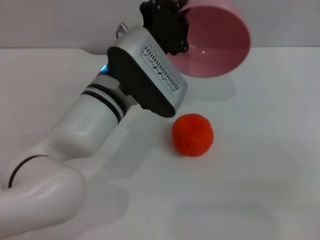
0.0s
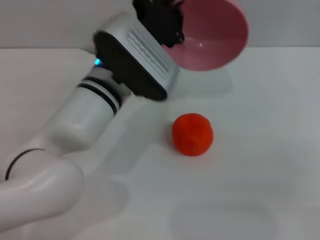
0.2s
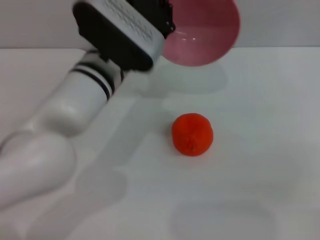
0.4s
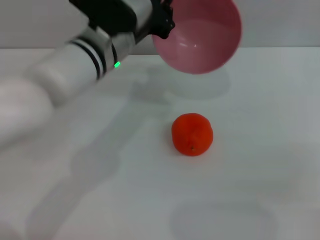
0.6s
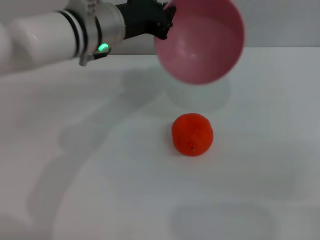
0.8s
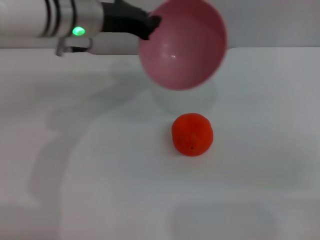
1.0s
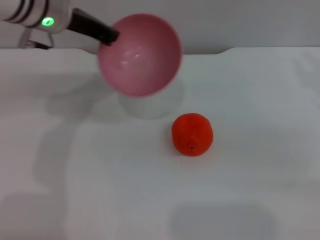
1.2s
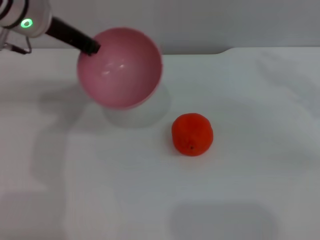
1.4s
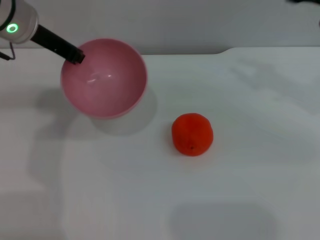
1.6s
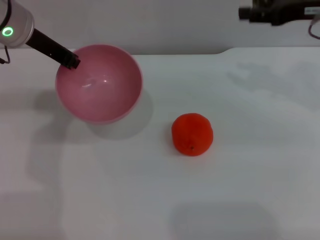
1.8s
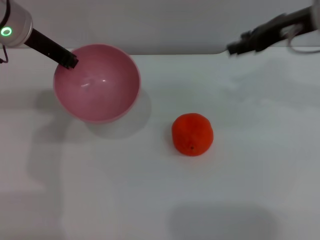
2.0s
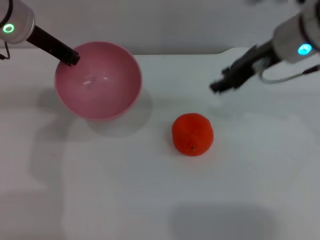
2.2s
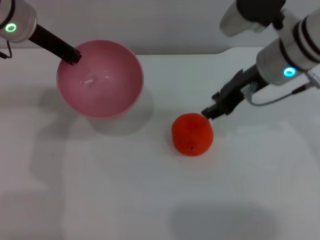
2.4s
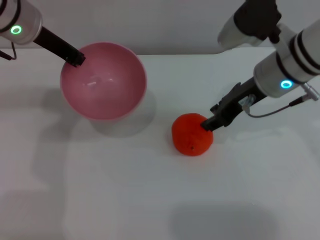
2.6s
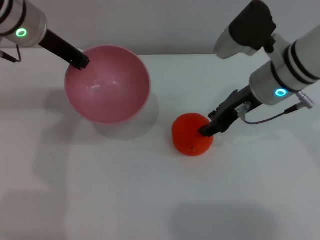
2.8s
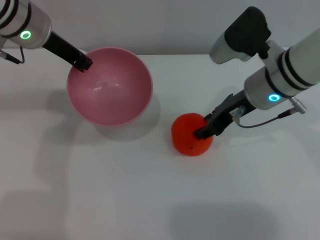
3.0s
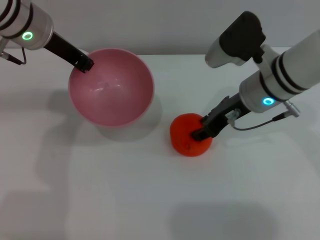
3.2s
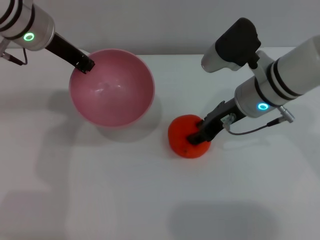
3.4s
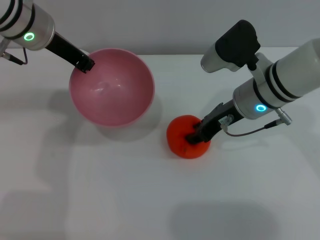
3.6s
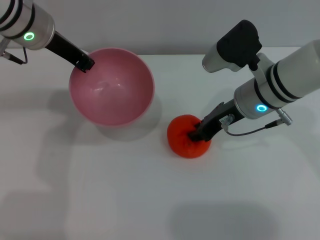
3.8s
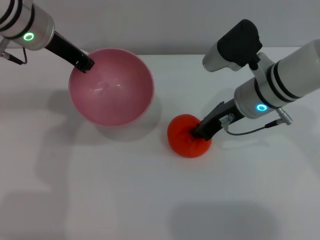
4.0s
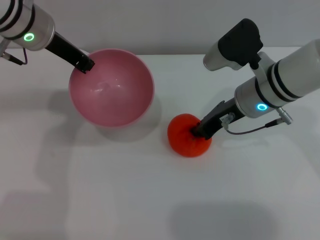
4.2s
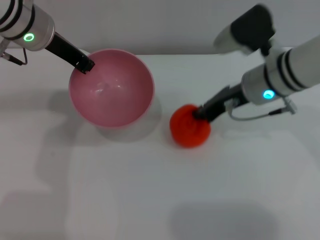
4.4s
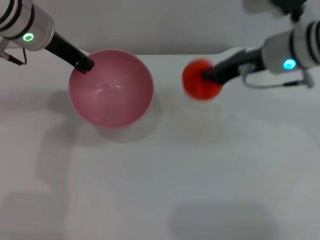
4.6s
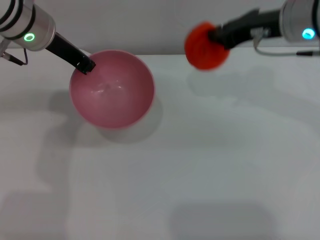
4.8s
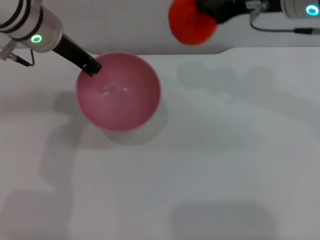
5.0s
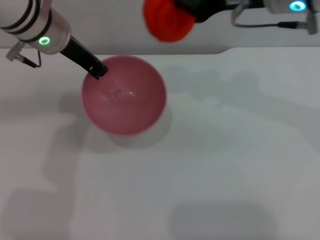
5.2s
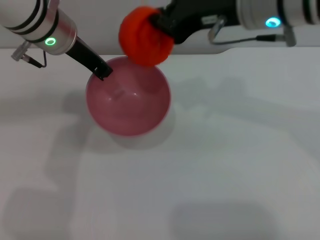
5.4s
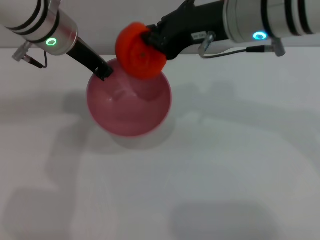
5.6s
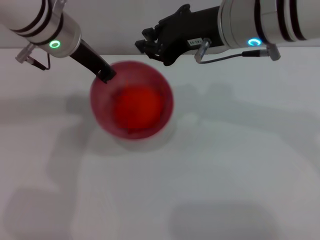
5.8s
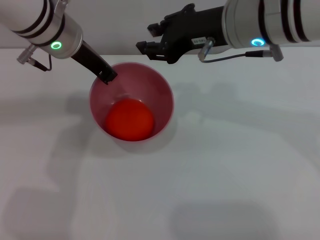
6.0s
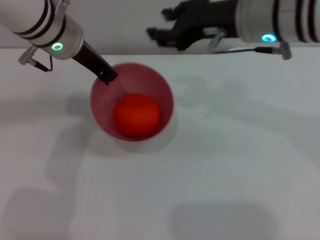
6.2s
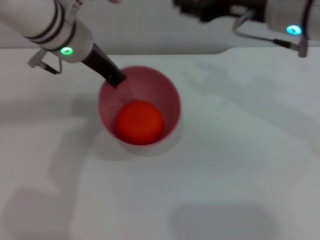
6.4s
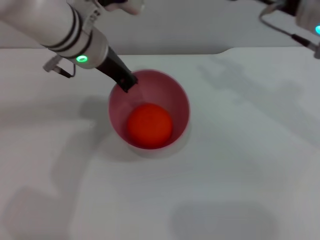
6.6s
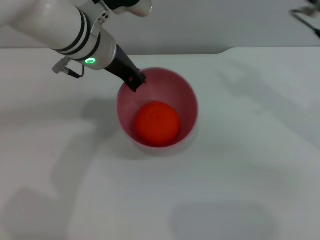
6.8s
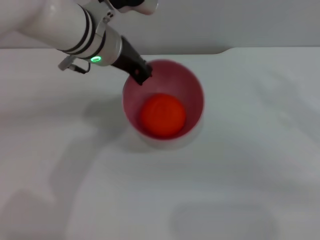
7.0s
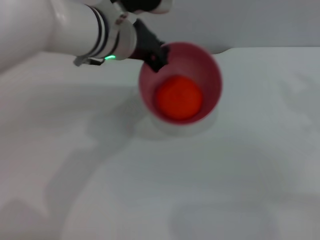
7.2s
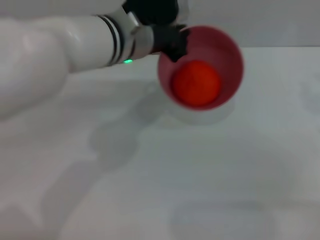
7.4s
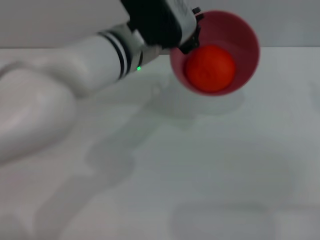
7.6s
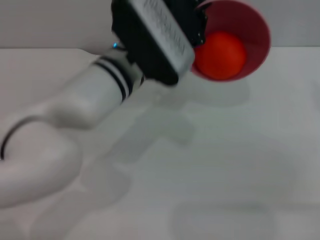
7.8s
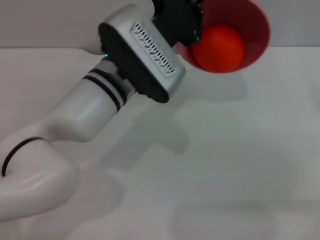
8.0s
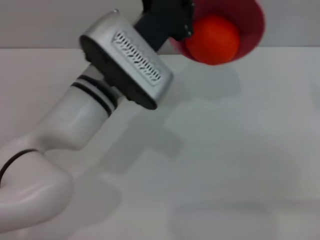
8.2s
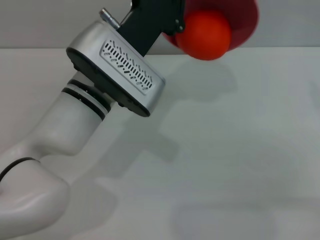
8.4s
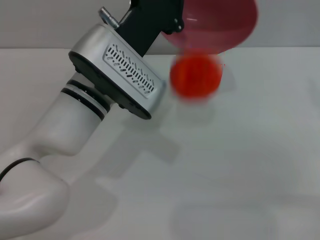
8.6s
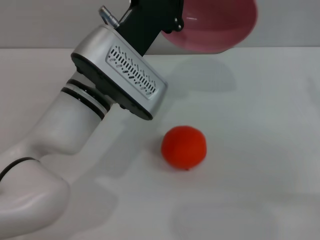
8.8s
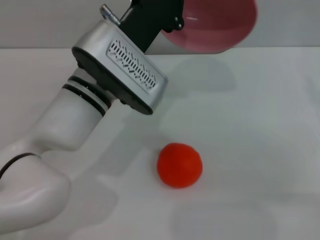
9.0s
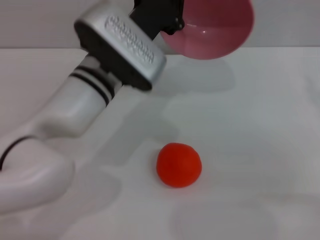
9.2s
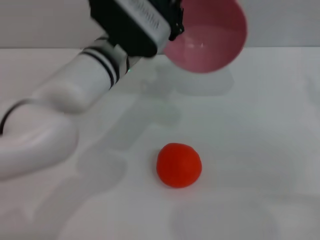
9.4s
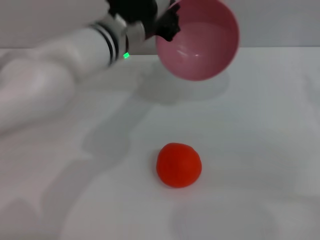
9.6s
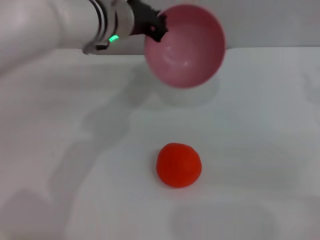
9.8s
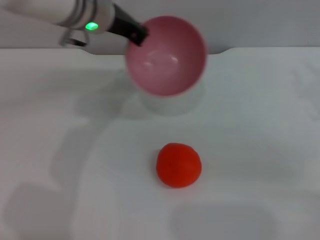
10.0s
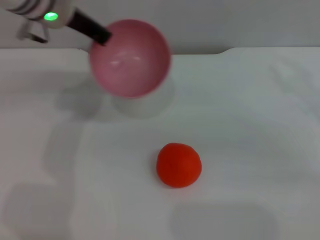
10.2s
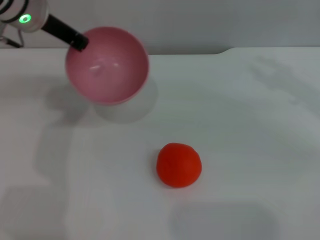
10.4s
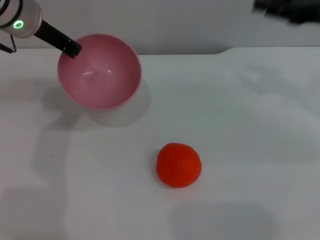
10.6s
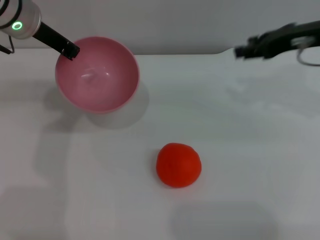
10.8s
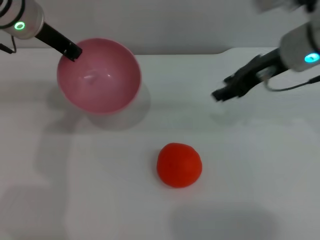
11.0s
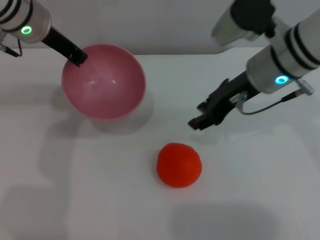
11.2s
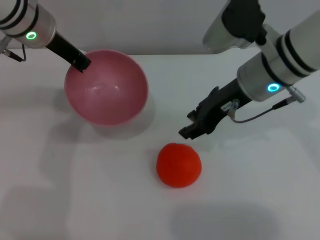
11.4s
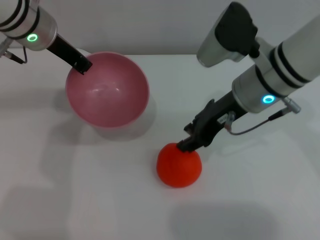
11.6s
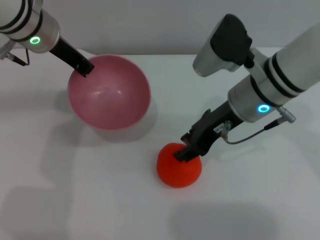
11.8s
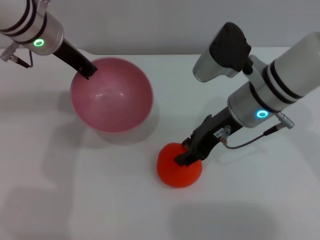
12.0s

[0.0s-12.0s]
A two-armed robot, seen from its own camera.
Task of the whole recording: put the orange into the pink bowl and pour it out repeatedly.
Step, 0.4s to 4.4s: Pick up the orange with the right gripper.
Step, 4.6s to 6.4s: Place the orange into the bowl.
Step, 6.6s to 8.6s: Pour the orange out of the bowl.
0.0s to 1.6s: The left gripper is displaced to the left, upward and forward by about 20 cm, while the right gripper shifts about 10 cm forward.
1.6s to 3.0s: The right gripper shifts roughly 15 cm to the left and downward.
3.0s to 4.4s: The right gripper closes.
4.4s to 6.0s: The right gripper travels upward by about 10 cm, and opens up.
6.0s to 7.6s: The right gripper goes about 20 cm to the right, and opens, while the left gripper is displaced to the right by about 10 cm.
9.0s to 10.4s: The right gripper heads forward, covering approximately 5 cm. Meanwhile the left gripper is displaced to the left, forward and upward by about 15 cm.
10.4s to 12.0s: The right gripper moves to the left, about 20 cm.

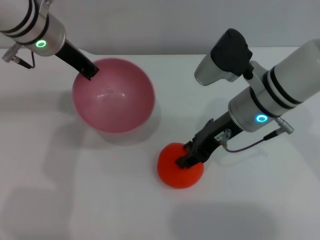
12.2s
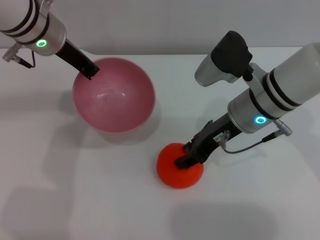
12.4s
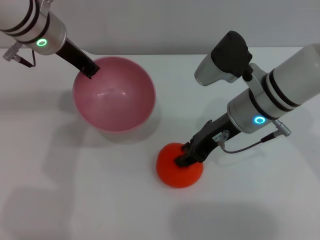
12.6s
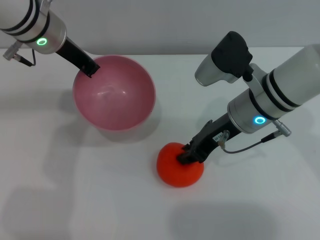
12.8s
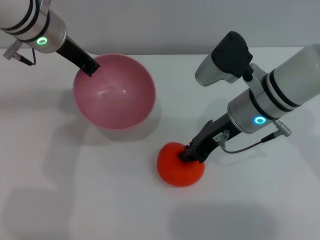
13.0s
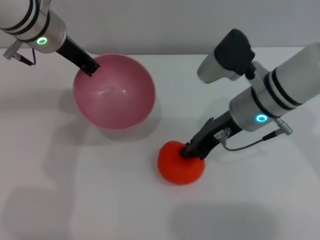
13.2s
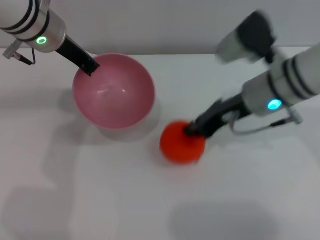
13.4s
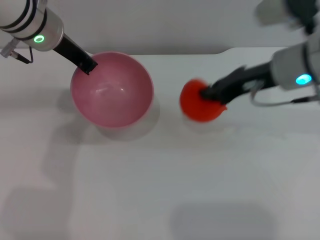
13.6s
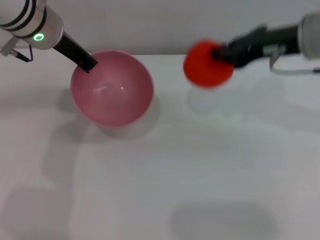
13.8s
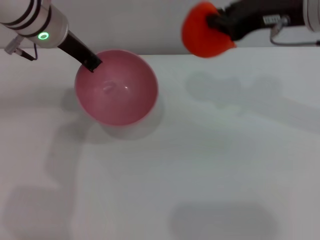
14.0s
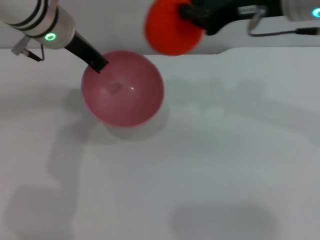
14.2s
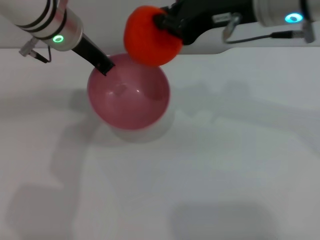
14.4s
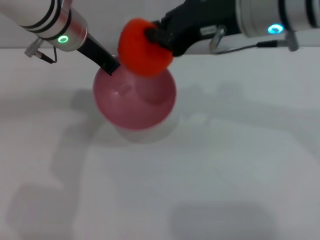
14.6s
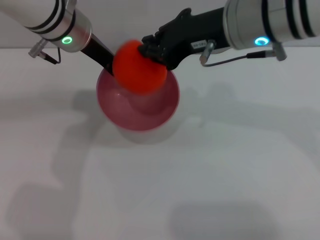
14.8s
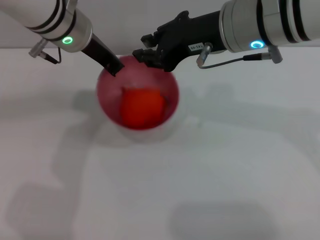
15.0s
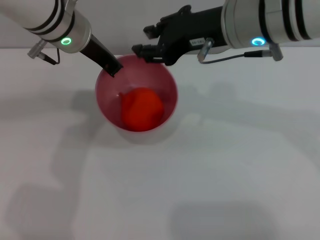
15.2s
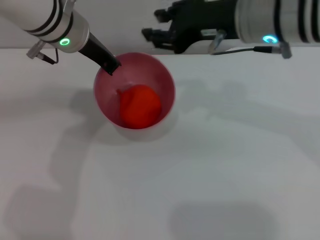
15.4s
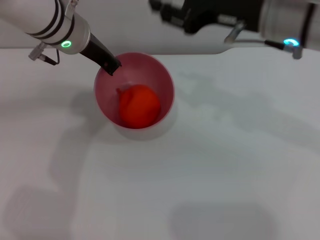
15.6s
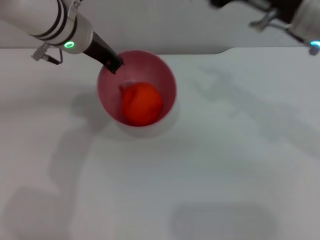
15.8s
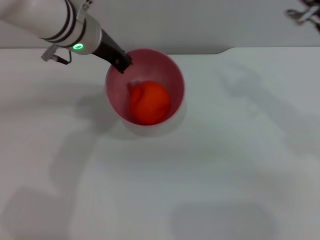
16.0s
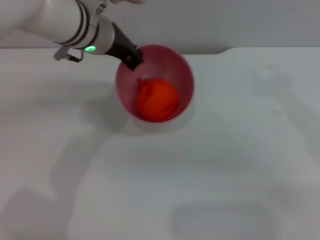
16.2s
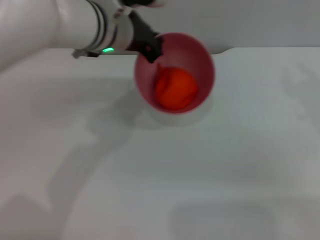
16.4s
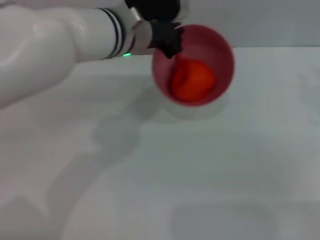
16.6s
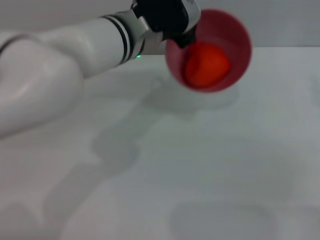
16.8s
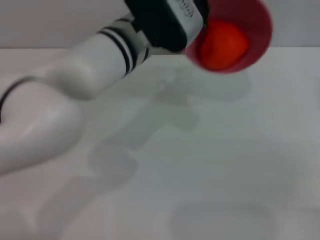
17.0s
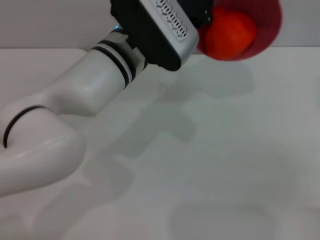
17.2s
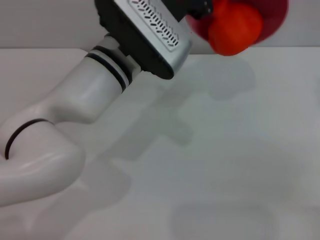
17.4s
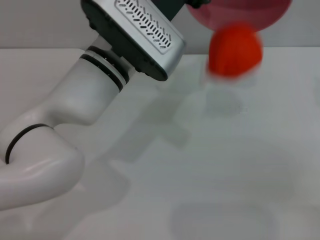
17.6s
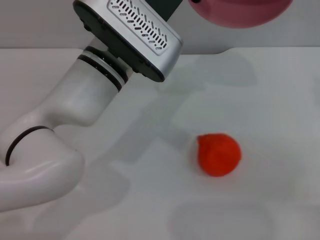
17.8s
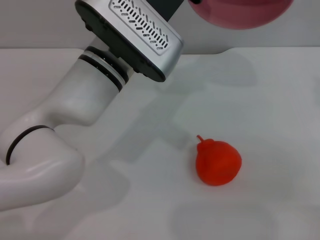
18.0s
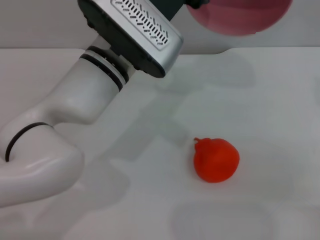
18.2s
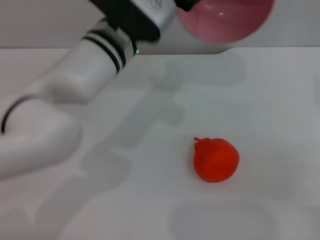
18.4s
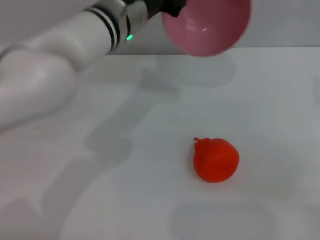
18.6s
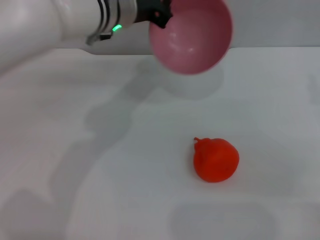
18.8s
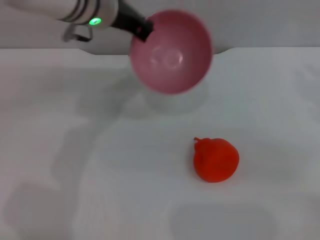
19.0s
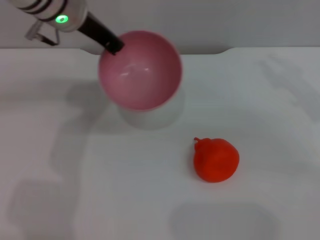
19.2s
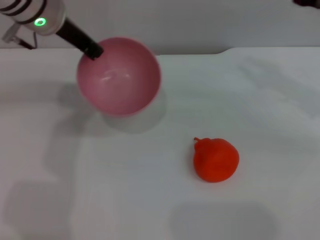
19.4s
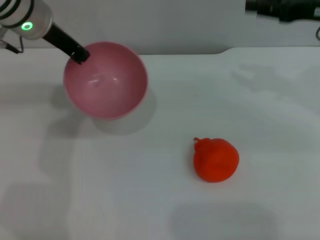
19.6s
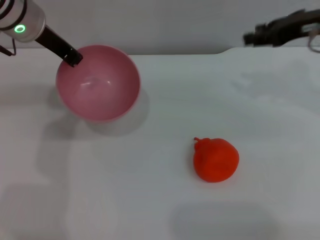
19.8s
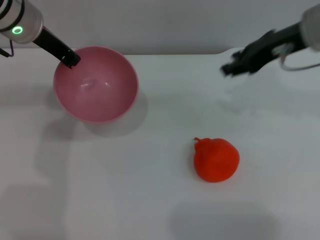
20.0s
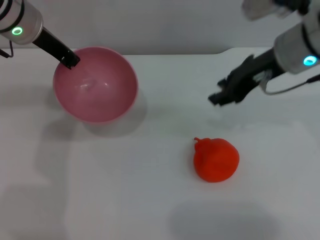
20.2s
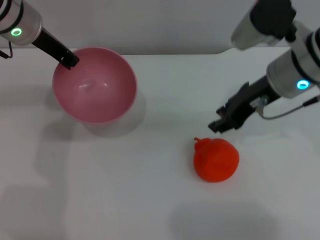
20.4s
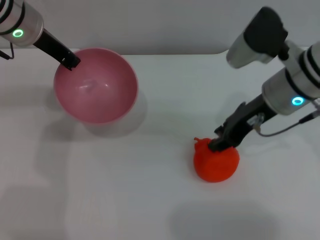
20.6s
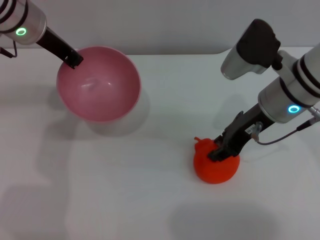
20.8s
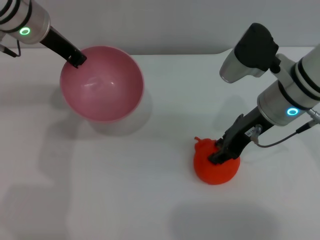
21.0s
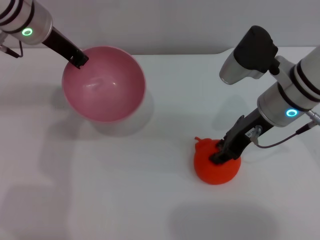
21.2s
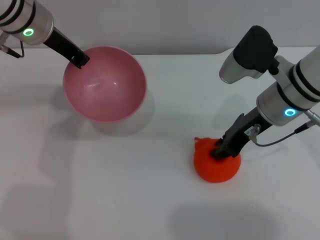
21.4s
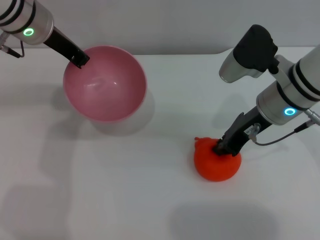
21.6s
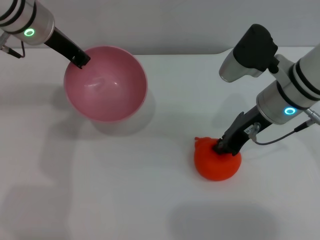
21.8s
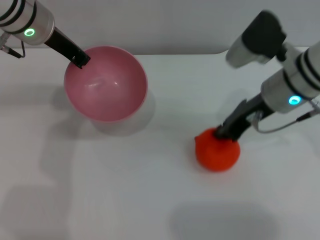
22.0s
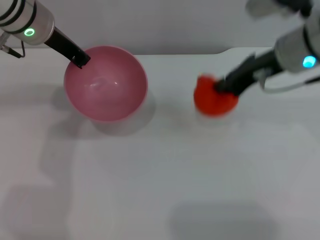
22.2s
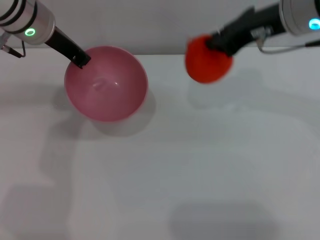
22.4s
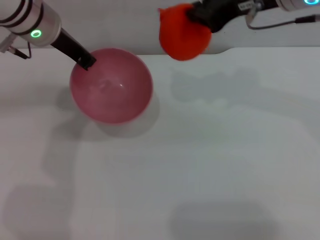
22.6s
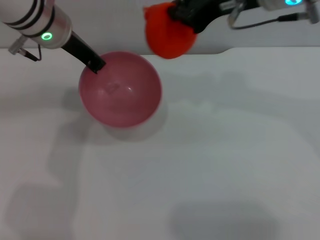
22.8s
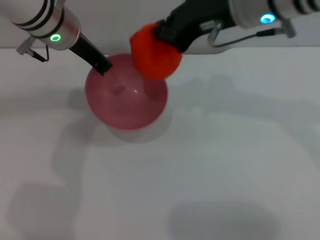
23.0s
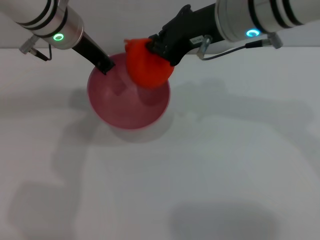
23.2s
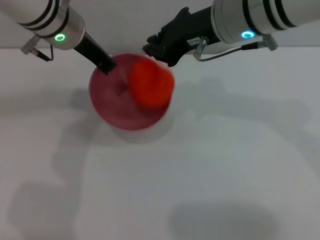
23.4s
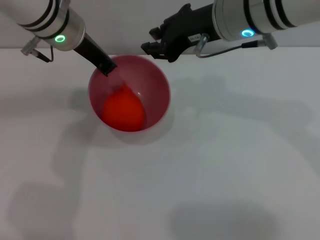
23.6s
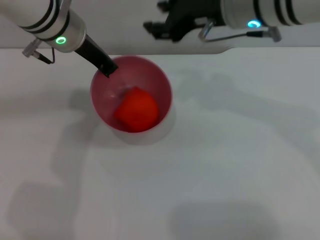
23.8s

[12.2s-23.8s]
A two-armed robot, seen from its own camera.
Task of the whole recording: put the orange into the pink bowl and pour it out repeatedly.
Step, 13.8s to 15.2s: Place the orange into the bowl.
Step, 15.4s to 18.2s: Pour the orange out of the bowl.
Step, 18.4s to 22.2s: Pick up the orange with the right gripper.
12.2s to 13.6s: The right gripper travels to the right by approximately 5 cm, and closes.
13.6s to 15.0s: The right gripper goes roughly 10 cm to the left and upward.
15.0s to 16.6s: The left gripper moves to the right, some 5 cm. The right gripper moves to the right, some 20 cm, and opens its fingers.
16.6s to 18.0s: The left gripper goes some 5 cm backward.
18.0s to 19.4s: The right gripper moves forward, some 10 cm. Meanwhile the left gripper travels to the left and forward by approximately 15 cm.
19.4s to 21.0s: The right gripper travels to the left by about 15 cm.
21.0s to 22.4s: The right gripper shifts some 10 cm upward, and closes its fingers.
22.4s to 23.8s: The right gripper shifts roughly 5 cm to the left, and opens.
